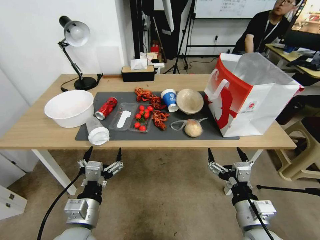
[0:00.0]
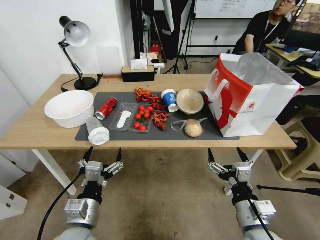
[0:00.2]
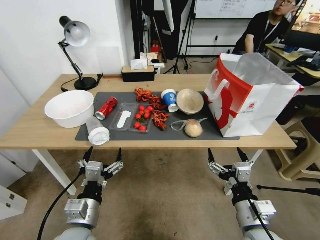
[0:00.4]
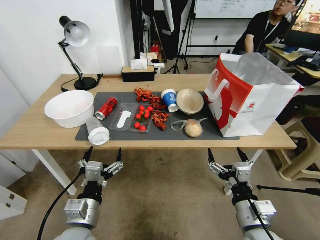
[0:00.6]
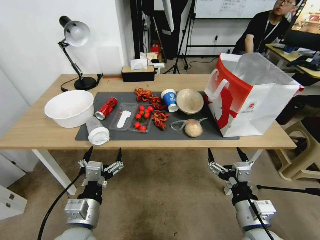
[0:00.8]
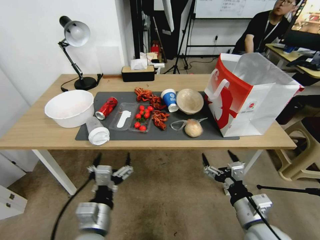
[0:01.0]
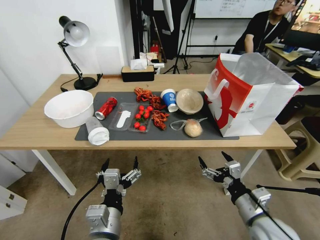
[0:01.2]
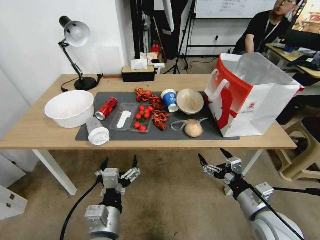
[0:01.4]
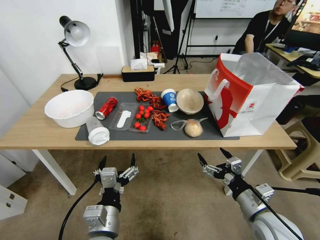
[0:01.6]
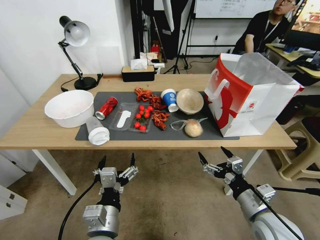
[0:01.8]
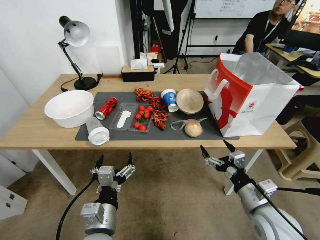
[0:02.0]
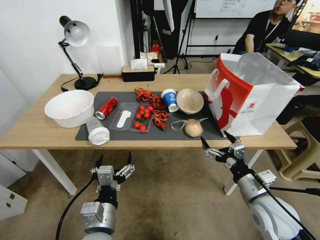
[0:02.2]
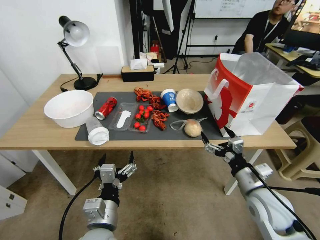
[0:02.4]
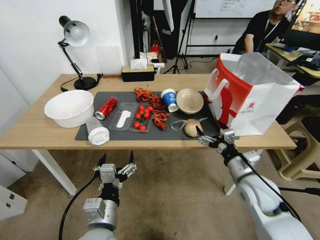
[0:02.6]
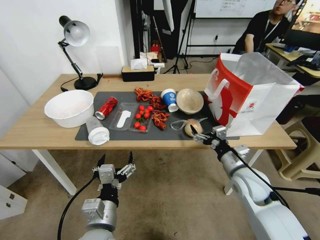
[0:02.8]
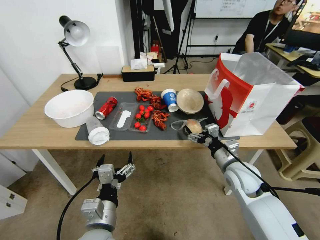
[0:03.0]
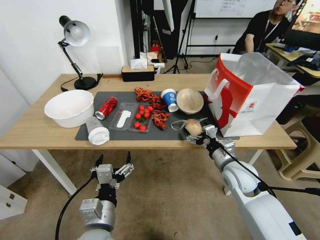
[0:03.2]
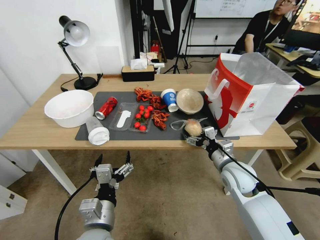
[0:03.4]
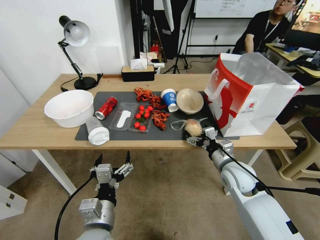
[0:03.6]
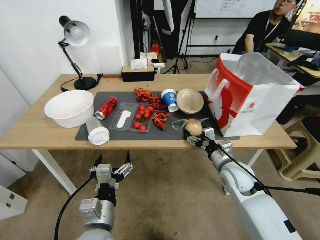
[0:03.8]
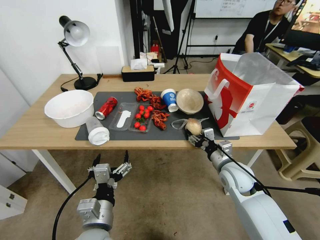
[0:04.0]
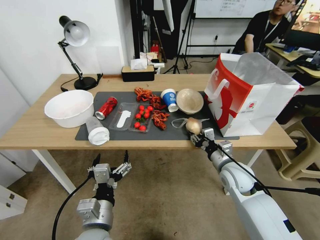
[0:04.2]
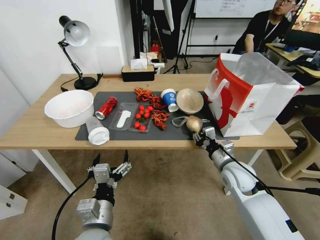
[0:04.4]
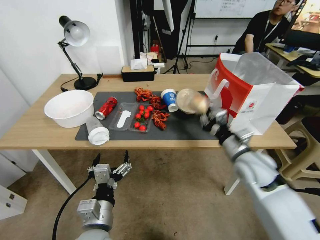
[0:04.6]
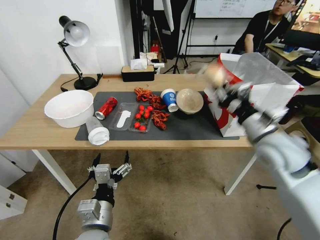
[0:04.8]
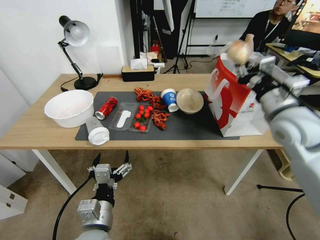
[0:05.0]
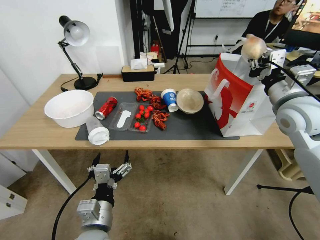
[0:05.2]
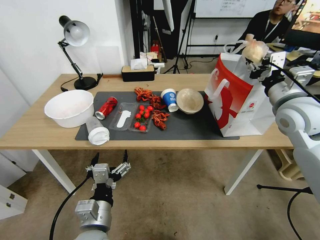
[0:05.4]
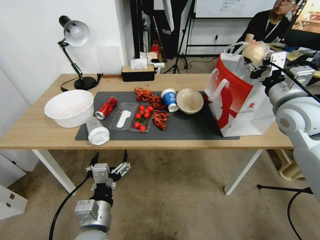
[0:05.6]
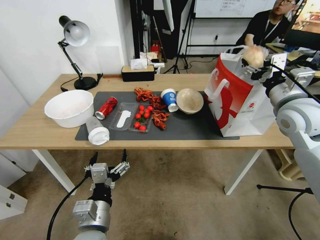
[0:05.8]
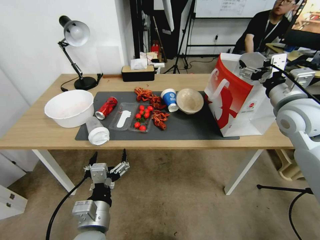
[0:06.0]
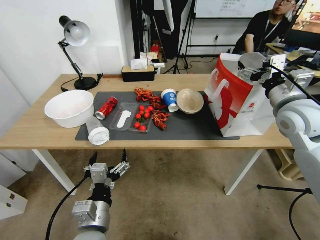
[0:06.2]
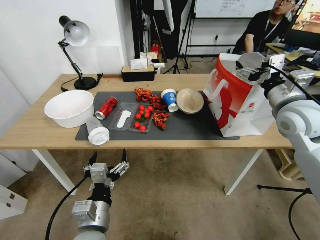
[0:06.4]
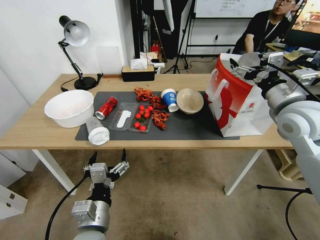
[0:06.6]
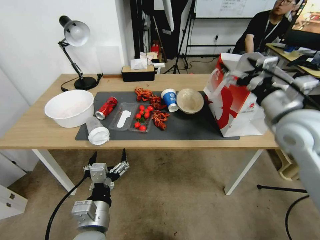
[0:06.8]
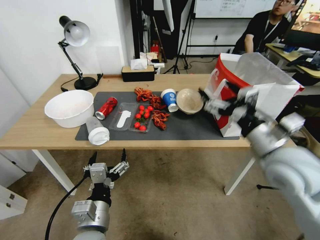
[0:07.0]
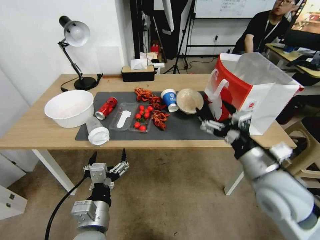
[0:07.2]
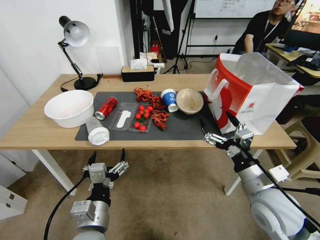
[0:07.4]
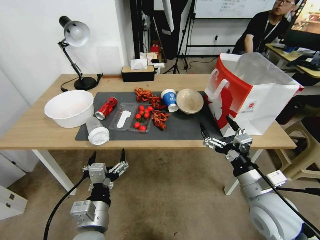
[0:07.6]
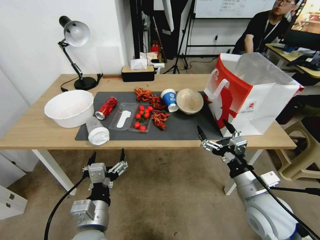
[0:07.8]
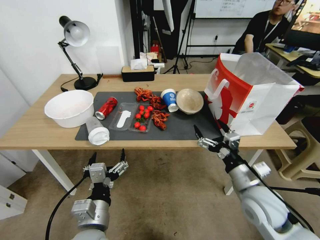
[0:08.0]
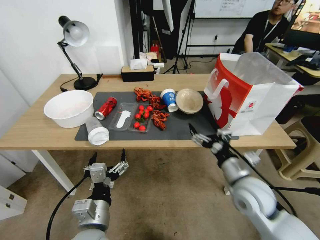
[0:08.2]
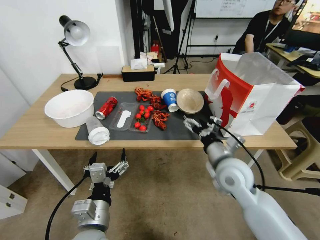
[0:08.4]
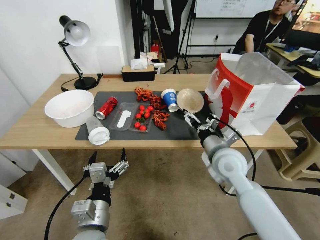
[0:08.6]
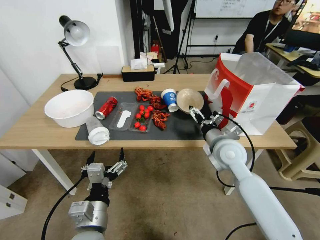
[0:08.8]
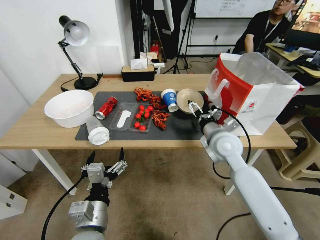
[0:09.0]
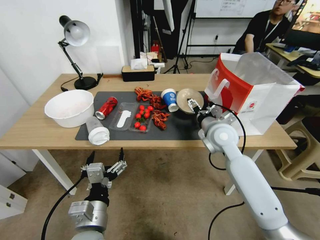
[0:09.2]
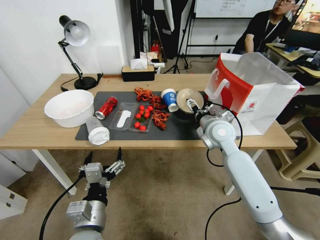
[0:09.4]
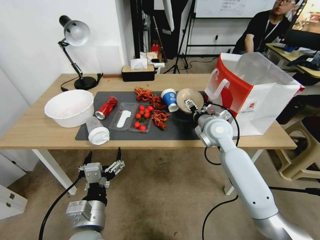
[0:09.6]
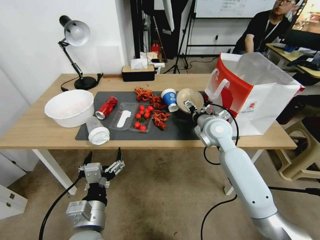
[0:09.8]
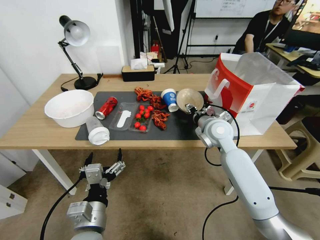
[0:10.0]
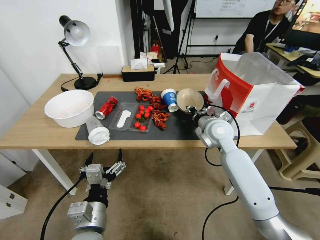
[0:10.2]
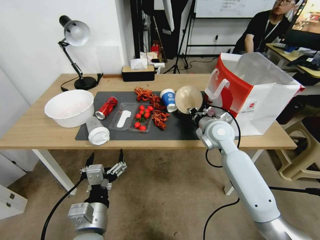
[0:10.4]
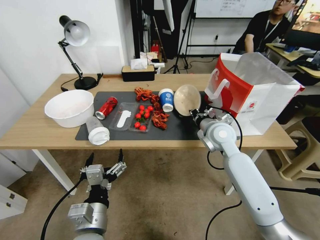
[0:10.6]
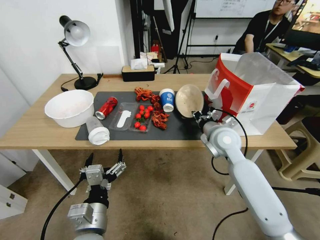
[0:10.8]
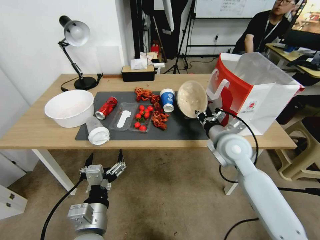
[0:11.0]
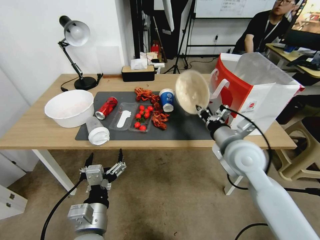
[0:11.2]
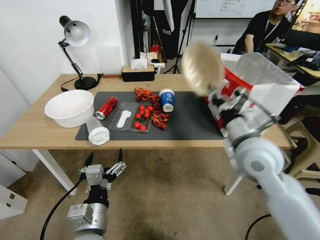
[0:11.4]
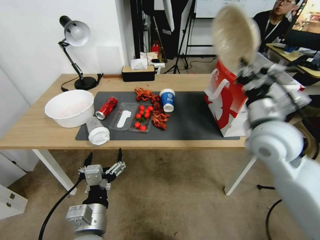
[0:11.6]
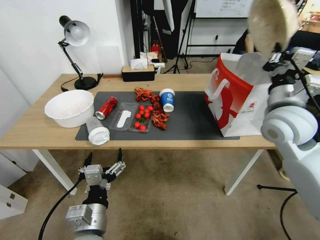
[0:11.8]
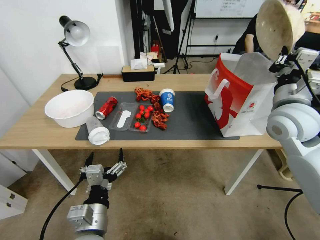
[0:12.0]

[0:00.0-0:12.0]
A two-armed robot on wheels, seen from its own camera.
0:01.6 to 0:03.0: The right gripper travels forward by approximately 15 cm.
0:03.0 to 0:04.4: The right gripper closes up.
0:04.4 to 0:06.0: The right gripper goes roughly 25 cm upward and to the right, and opens up.
0:06.0 to 0:07.6: The right gripper travels backward, downward and to the left by some 25 cm.
0:07.6 to 0:09.0: The right gripper moves forward and to the left, approximately 20 cm.
0:09.0 to 0:10.4: The right gripper closes.
0:10.4 to 0:12.0: The right gripper goes approximately 20 cm upward, to the right and backward.

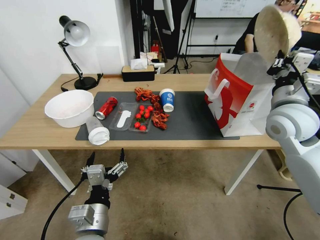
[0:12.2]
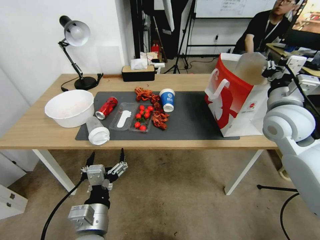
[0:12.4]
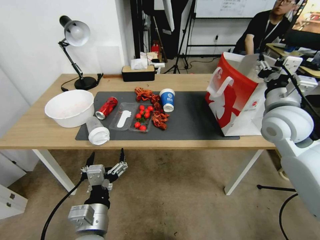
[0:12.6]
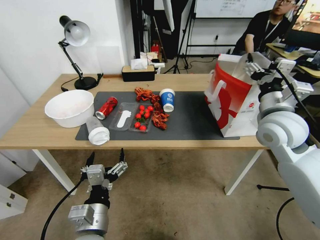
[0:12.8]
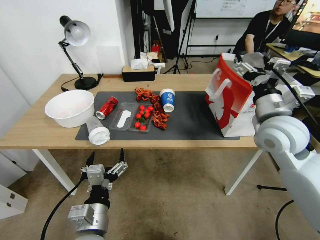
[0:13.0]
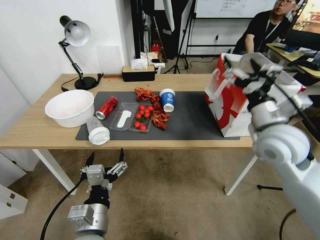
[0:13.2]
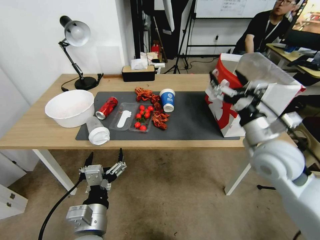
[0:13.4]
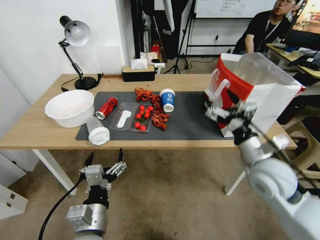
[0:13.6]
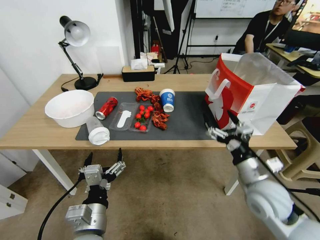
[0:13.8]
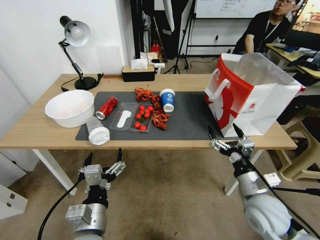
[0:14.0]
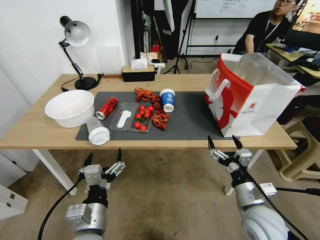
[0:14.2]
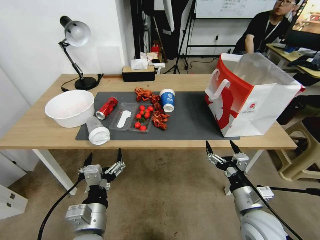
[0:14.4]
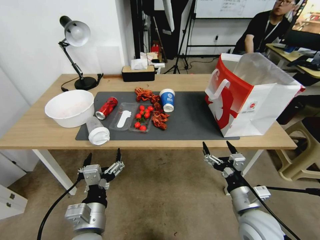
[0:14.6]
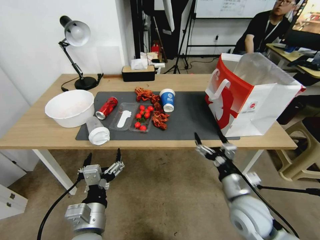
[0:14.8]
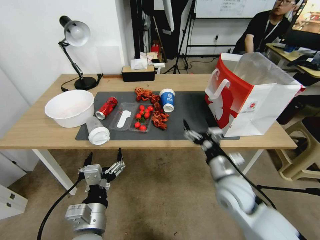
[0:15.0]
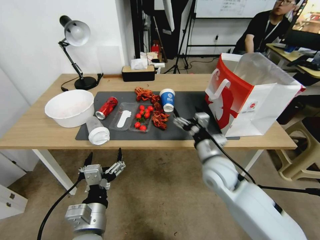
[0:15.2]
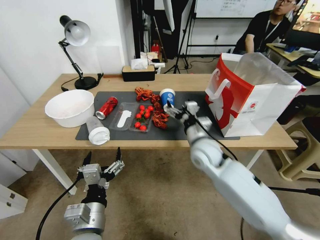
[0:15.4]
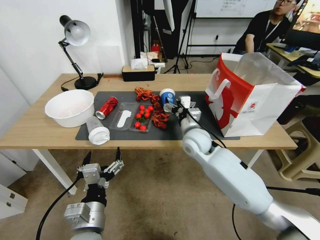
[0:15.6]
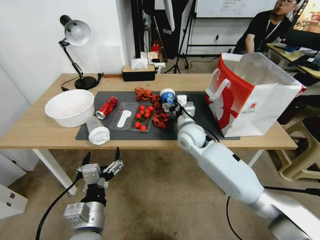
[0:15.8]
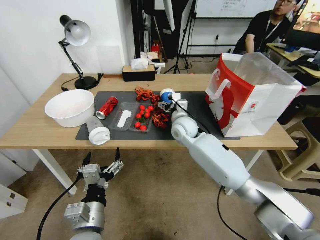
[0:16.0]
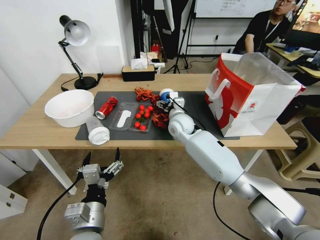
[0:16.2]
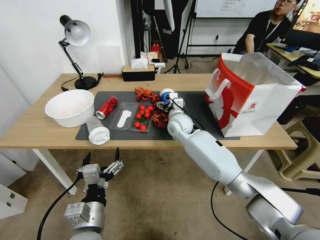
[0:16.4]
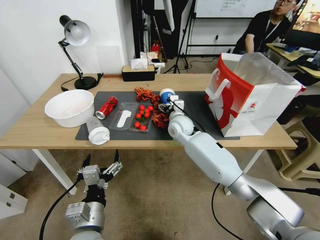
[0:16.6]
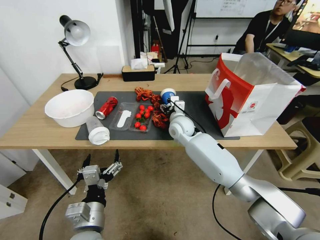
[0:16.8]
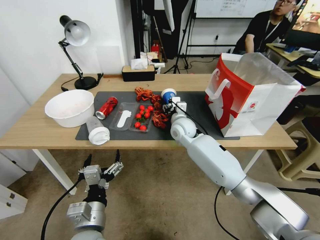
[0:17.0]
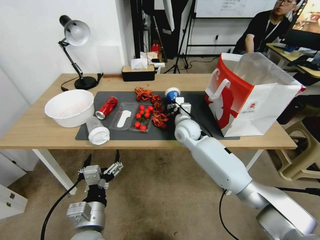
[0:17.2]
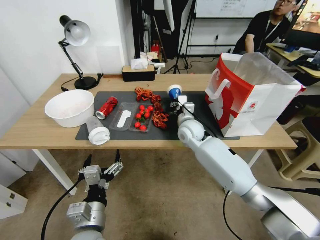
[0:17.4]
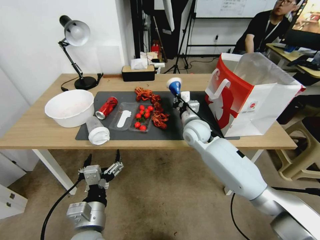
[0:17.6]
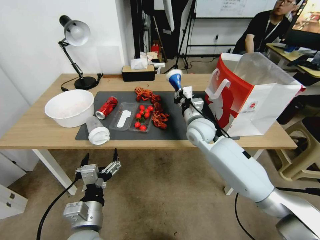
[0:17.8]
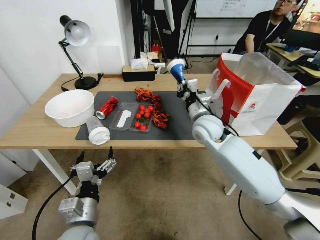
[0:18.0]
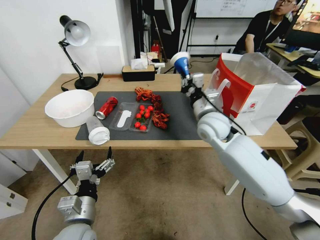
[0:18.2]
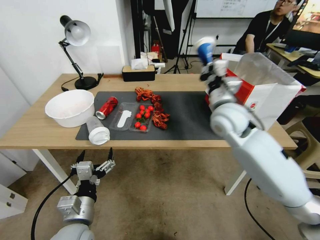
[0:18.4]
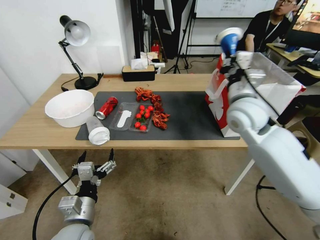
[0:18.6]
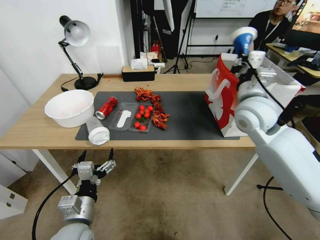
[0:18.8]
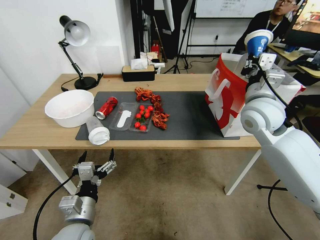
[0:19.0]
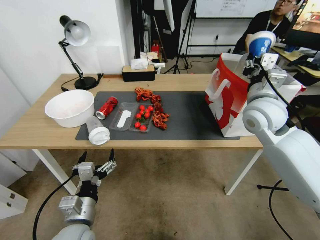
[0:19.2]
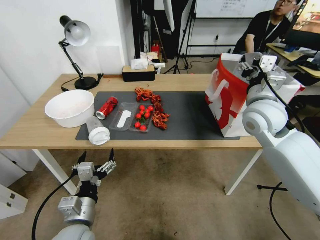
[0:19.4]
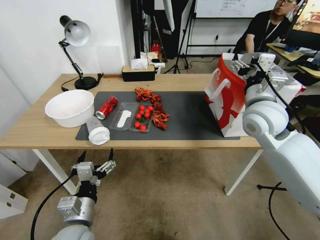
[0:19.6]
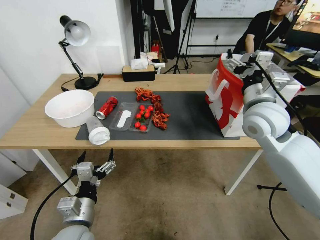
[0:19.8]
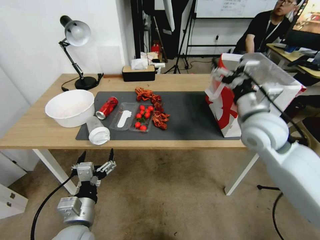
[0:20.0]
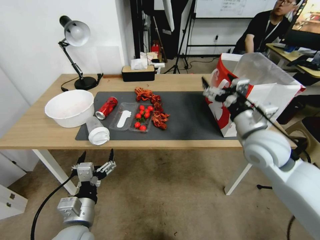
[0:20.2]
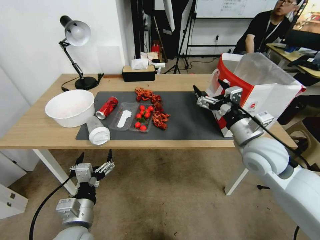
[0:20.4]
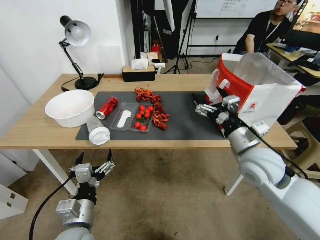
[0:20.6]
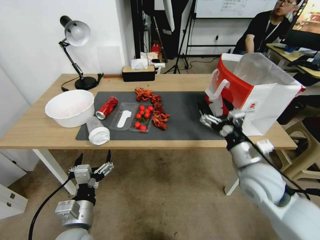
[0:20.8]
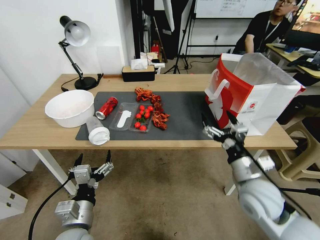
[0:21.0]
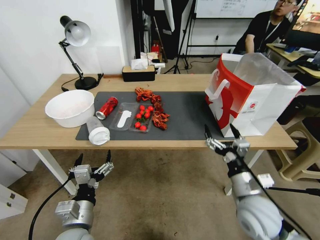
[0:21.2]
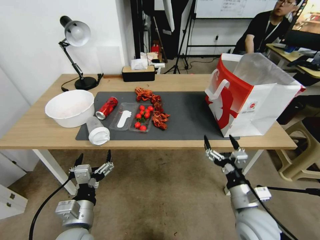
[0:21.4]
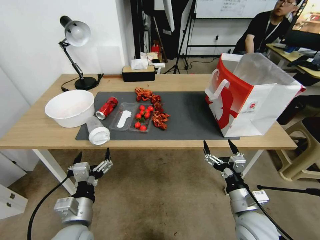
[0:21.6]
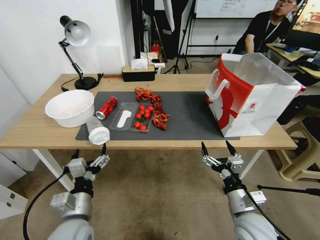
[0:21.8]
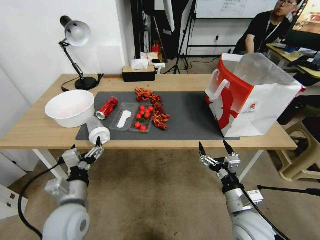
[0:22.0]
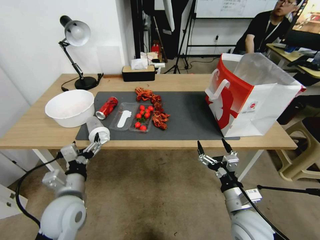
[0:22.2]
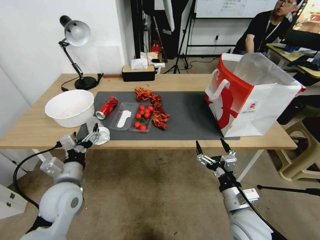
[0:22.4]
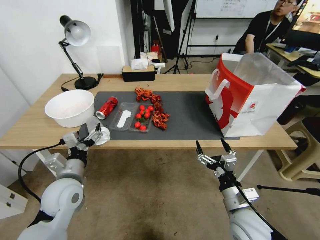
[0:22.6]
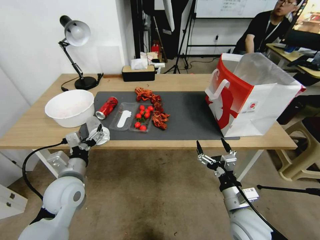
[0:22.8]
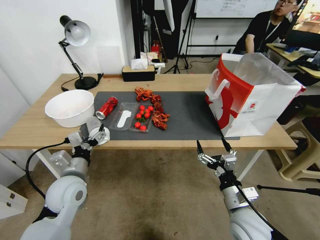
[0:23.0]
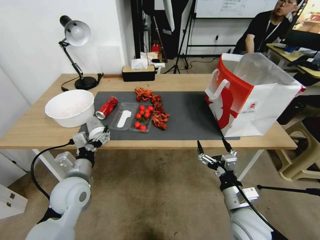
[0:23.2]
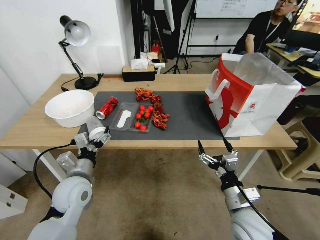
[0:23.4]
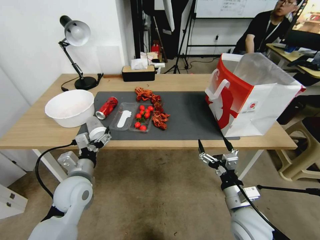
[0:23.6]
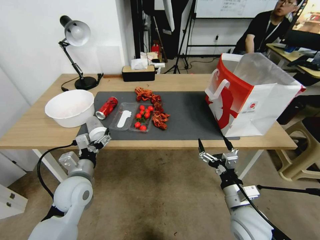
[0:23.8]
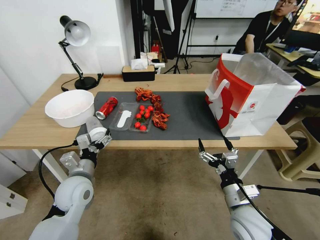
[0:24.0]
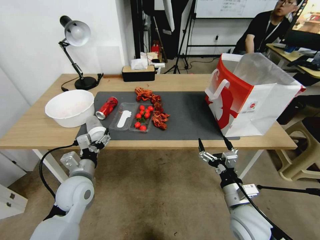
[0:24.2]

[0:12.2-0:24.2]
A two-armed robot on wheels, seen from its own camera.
0:12.2 to 0:13.8: The right gripper heads downward and backward, covering approximately 10 cm, and opens up.
0:13.8 to 0:15.2: The right gripper moves to the left and downward, roughly 15 cm.
0:15.2 to 0:16.6: The right gripper goes about 20 cm forward and to the left.
0:16.6 to 0:18.2: The right gripper shifts approximately 10 cm upward, to the right and backward, and closes up.
0:18.2 to 0:19.8: The right gripper moves to the right, upward and backward, some 15 cm, and opens.
0:19.8 to 0:21.2: The right gripper is displaced downward and backward by approximately 25 cm.
0:21.2 to 0:22.6: The right gripper changes place by about 5 cm. The left gripper moves forward and to the left, some 10 cm.
0:22.6 to 0:24.2: The grippers make only small movements.
